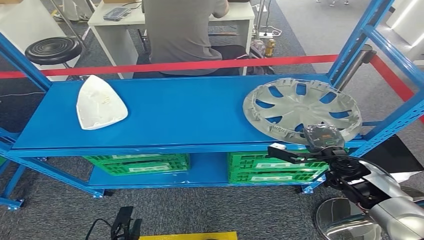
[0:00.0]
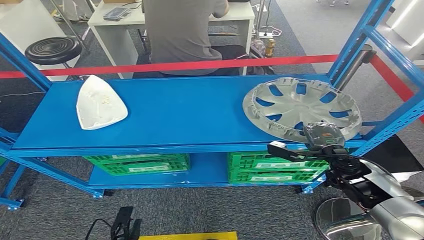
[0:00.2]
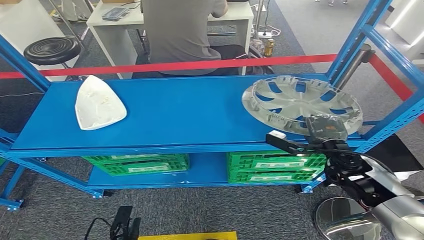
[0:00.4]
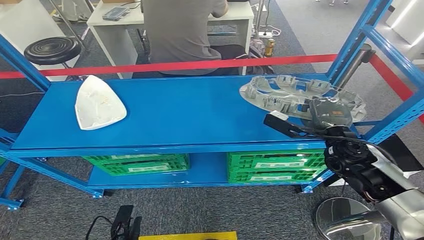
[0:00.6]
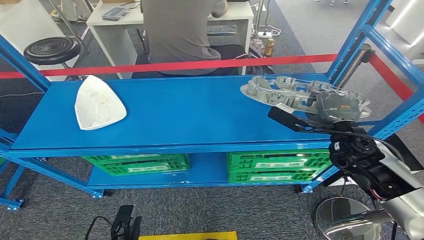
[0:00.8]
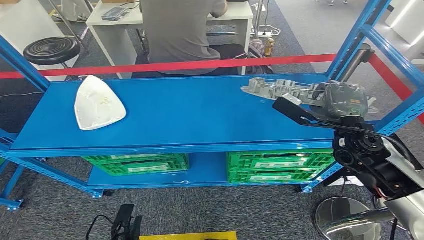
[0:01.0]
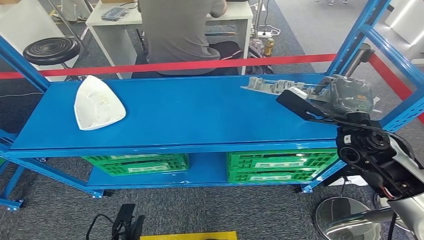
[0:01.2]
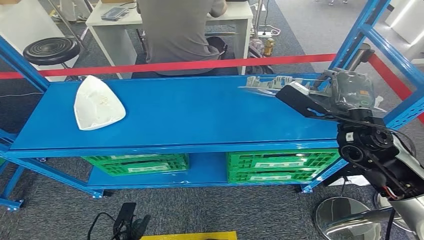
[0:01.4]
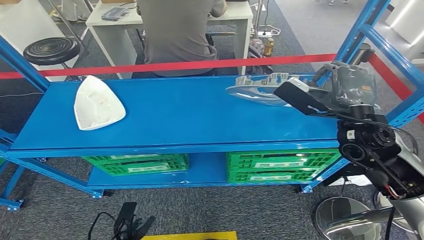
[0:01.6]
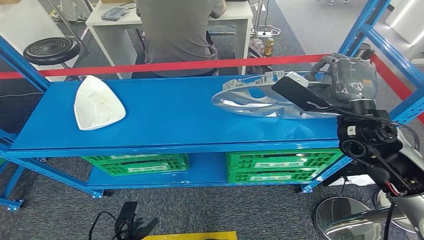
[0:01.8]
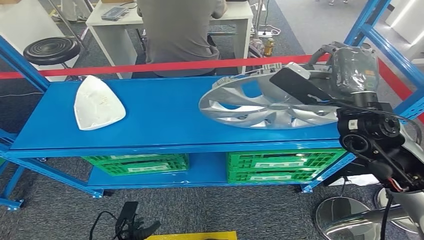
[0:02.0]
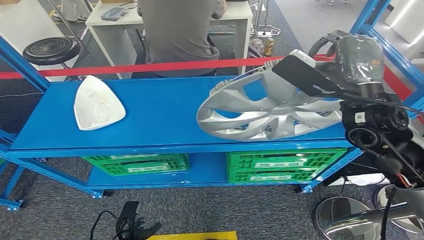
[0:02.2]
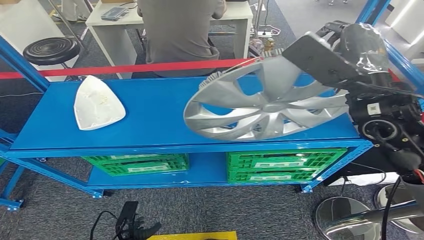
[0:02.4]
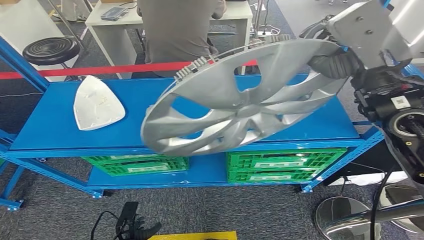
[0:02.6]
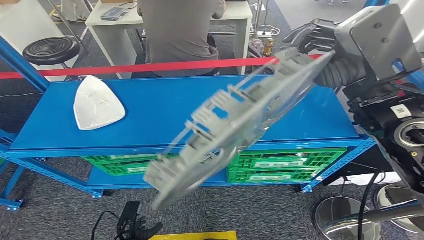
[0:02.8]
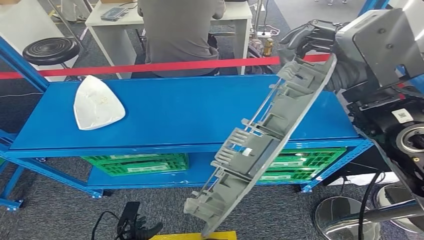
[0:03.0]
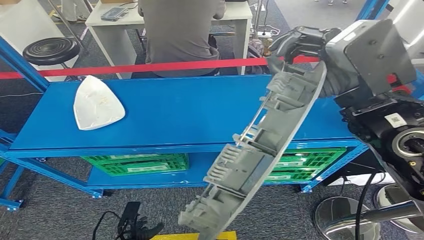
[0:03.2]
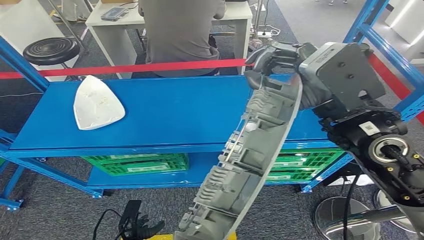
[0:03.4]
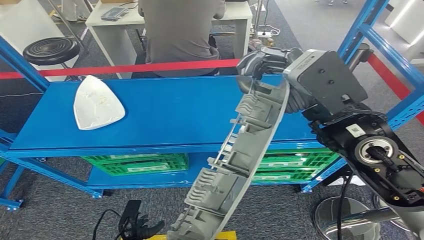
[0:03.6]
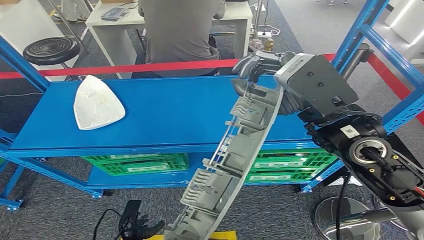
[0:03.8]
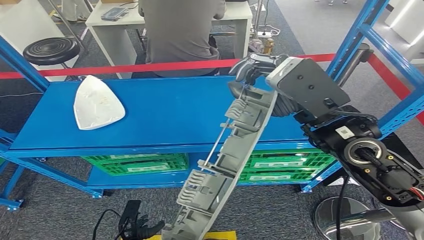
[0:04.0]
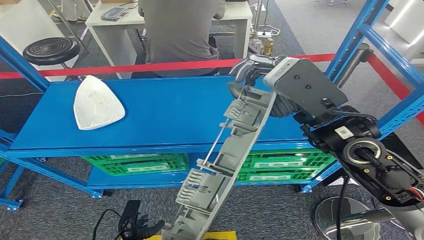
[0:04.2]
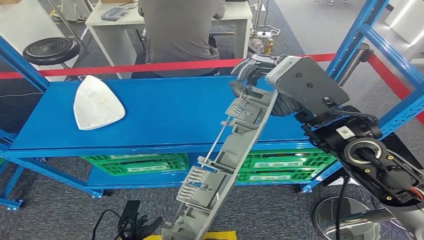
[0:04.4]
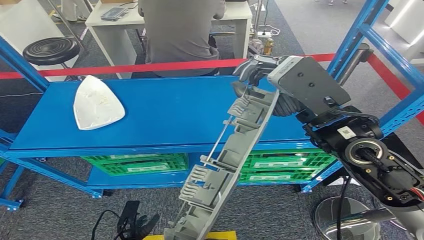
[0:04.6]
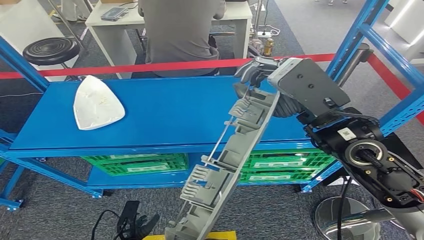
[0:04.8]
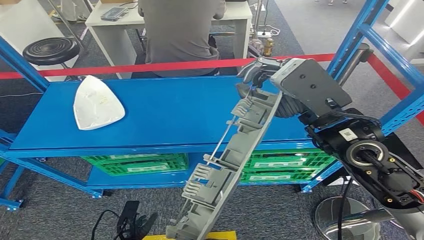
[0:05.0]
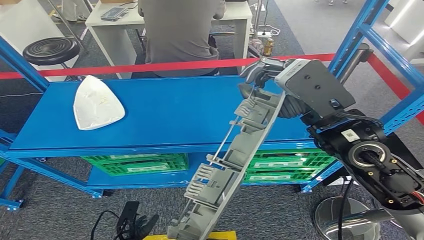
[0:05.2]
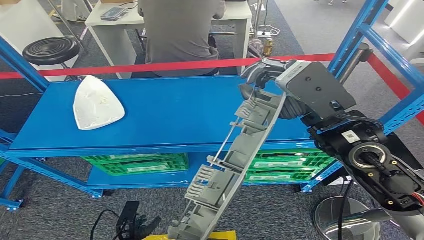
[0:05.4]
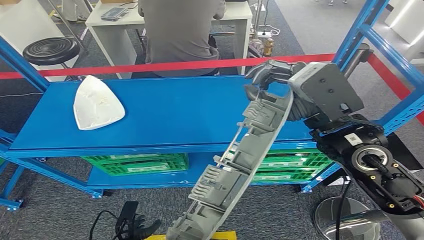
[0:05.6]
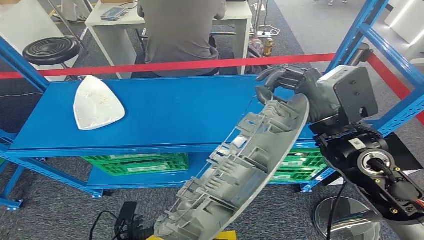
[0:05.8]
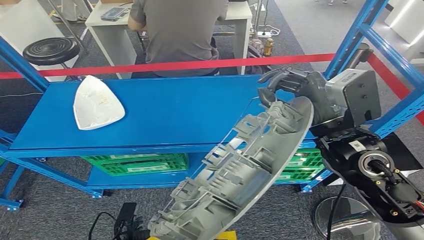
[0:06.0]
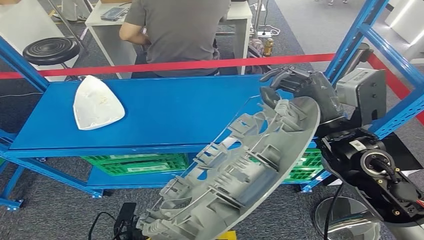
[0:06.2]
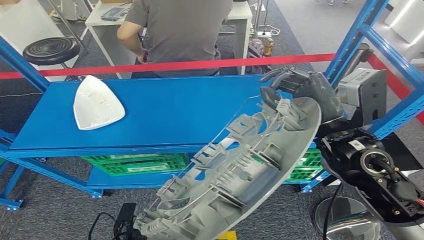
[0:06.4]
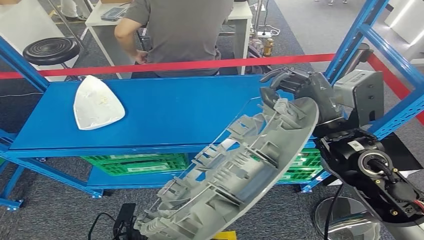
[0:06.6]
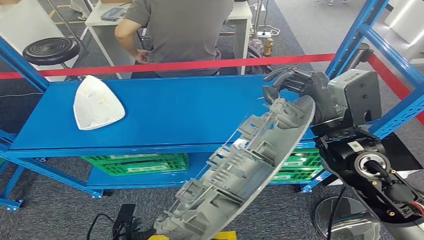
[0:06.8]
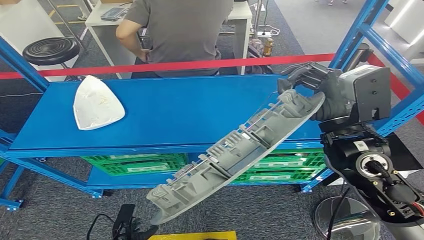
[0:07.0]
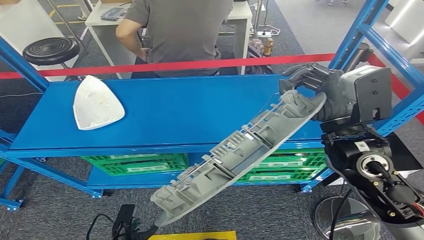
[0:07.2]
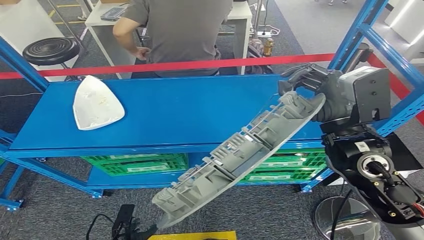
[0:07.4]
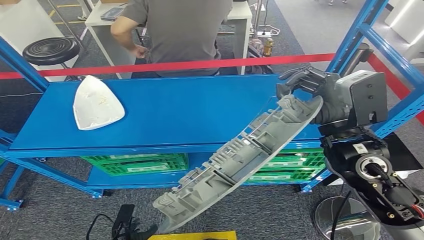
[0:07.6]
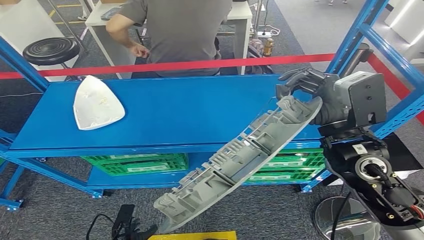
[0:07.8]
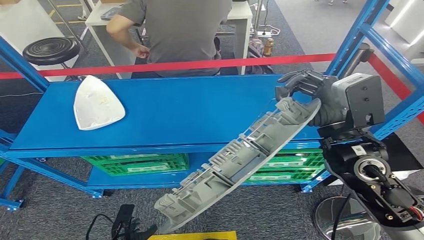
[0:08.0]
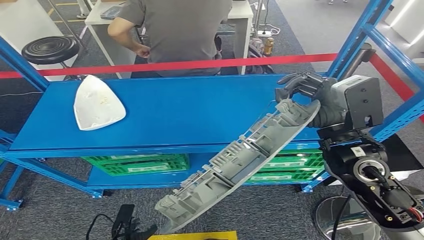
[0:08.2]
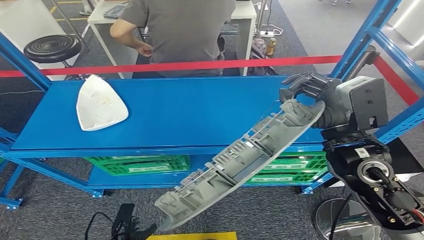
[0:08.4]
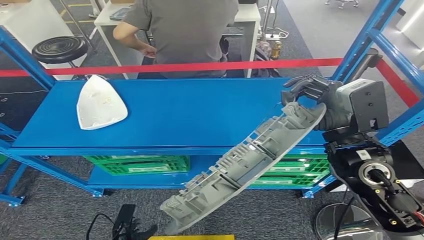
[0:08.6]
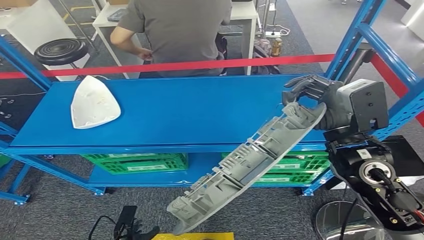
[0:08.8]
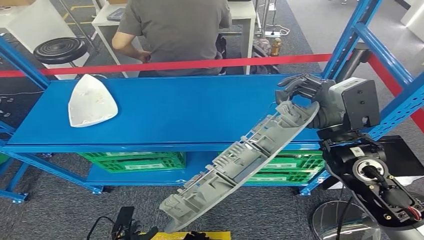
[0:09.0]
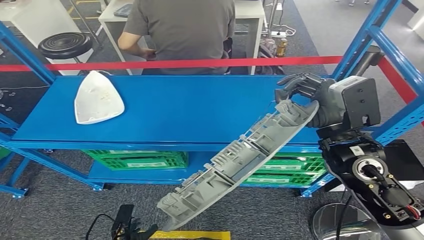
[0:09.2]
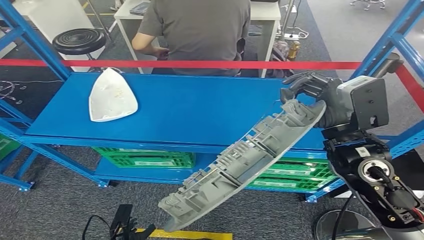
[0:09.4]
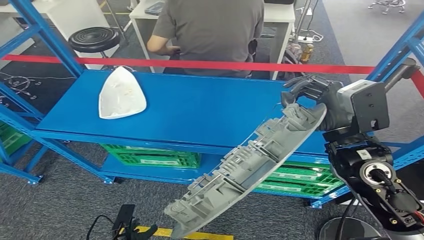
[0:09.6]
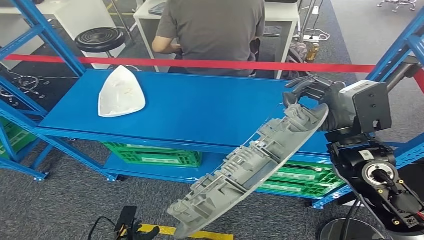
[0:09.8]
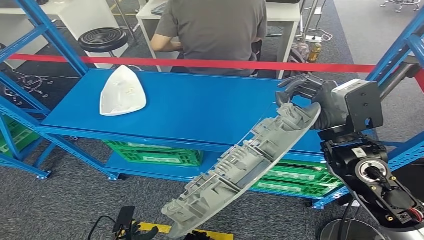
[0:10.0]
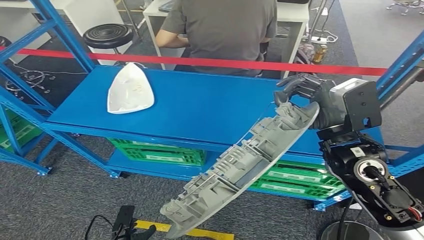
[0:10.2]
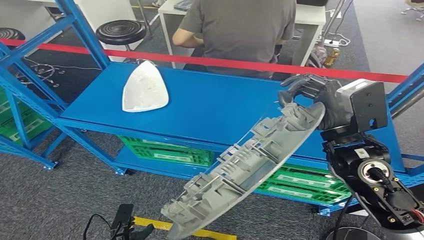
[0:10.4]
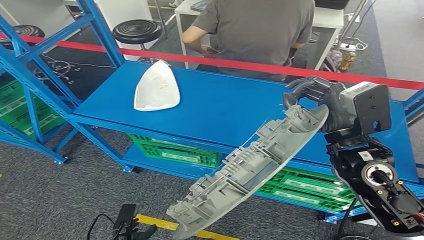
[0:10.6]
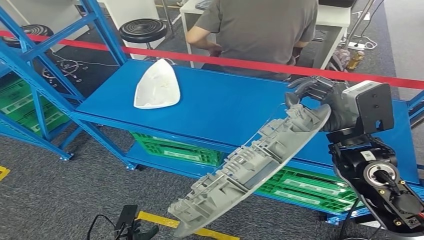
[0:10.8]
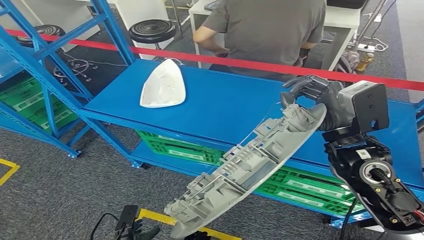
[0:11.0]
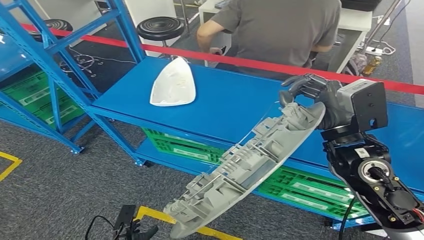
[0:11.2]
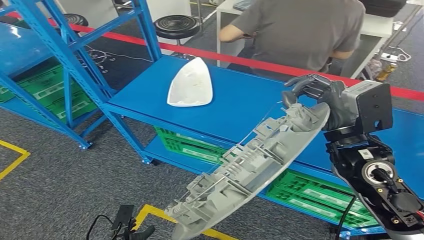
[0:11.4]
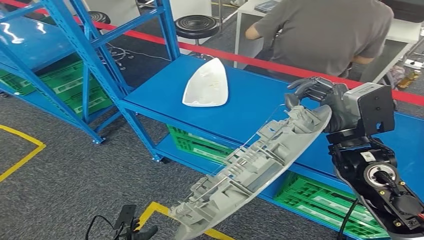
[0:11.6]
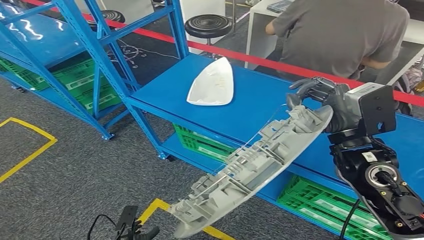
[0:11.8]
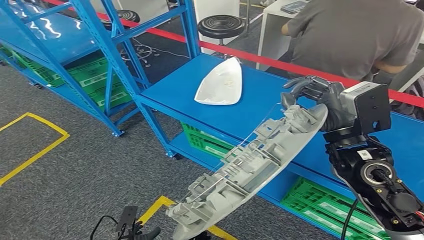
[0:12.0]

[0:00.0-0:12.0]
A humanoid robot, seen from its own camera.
Step, 0:00.0 to 0:02.6: Pick up the small parts from the shelf.
0:00.0 to 0:01.6: The right hand heads upward, covering roughly 15 cm.
0:04.4 to 0:06.0: The right hand moves about 5 cm.
0:06.0 to 0:07.6: There are only small adjustments of the hands.

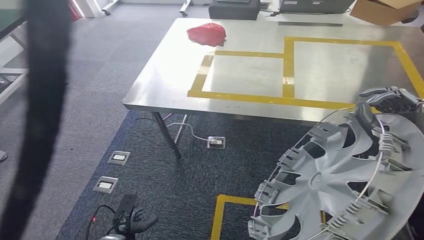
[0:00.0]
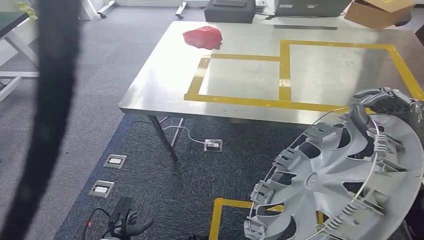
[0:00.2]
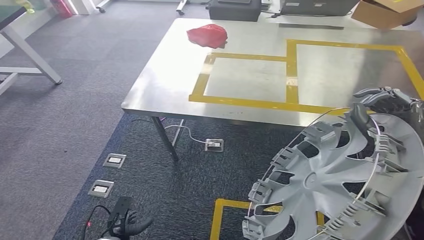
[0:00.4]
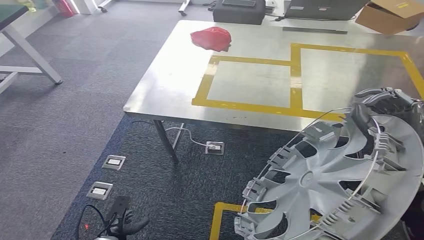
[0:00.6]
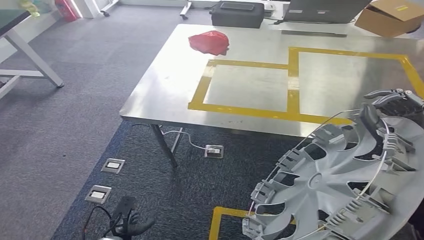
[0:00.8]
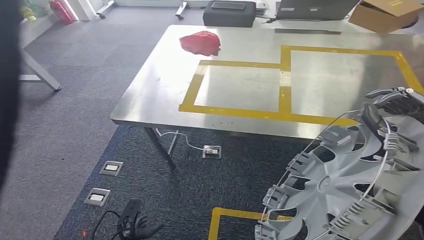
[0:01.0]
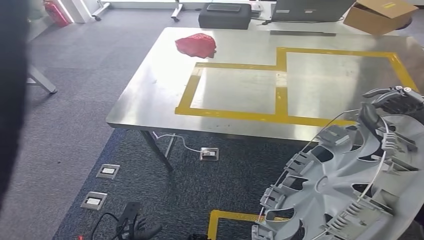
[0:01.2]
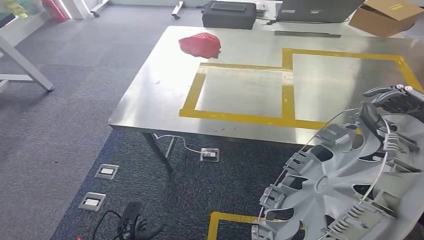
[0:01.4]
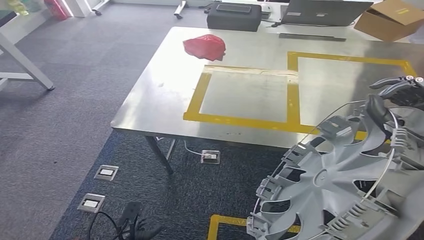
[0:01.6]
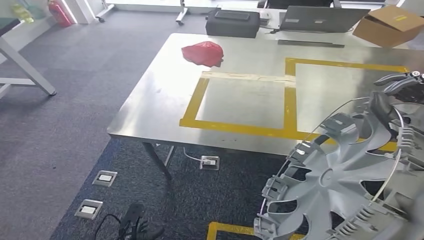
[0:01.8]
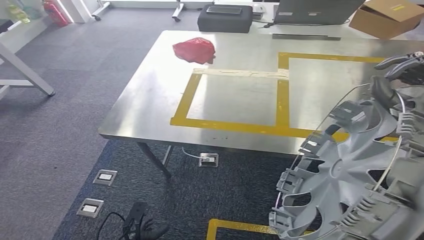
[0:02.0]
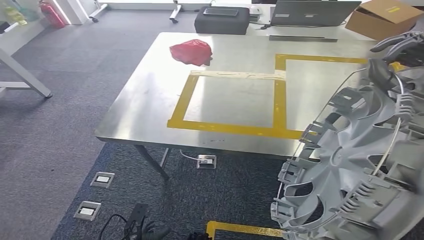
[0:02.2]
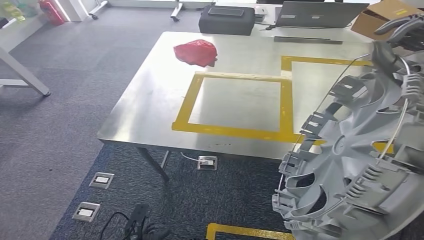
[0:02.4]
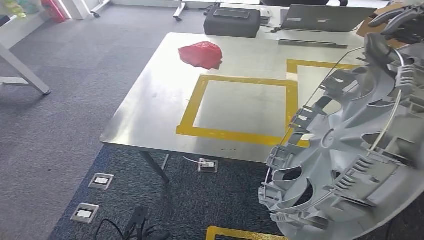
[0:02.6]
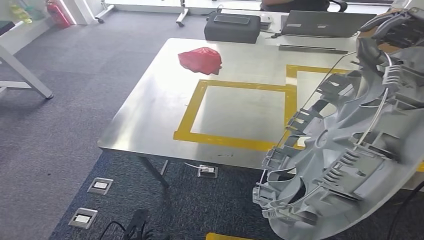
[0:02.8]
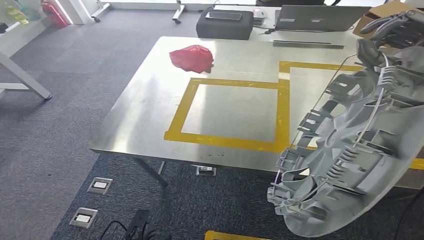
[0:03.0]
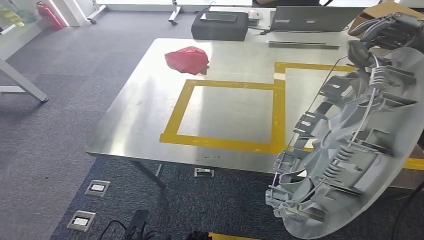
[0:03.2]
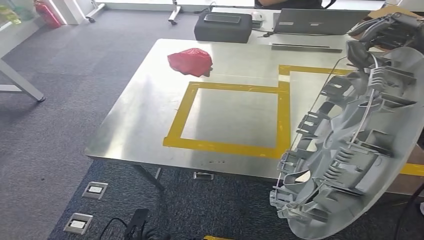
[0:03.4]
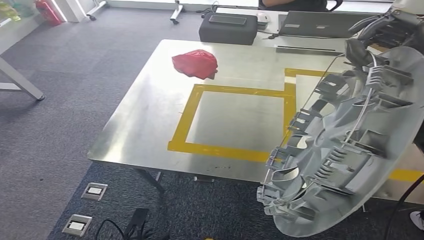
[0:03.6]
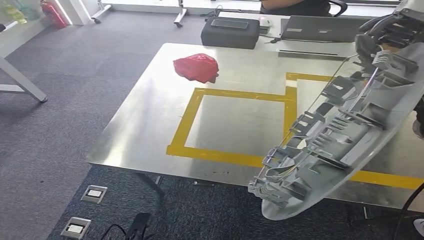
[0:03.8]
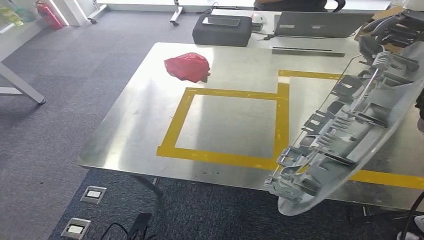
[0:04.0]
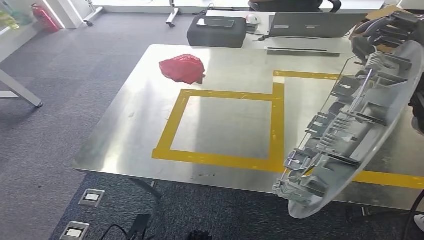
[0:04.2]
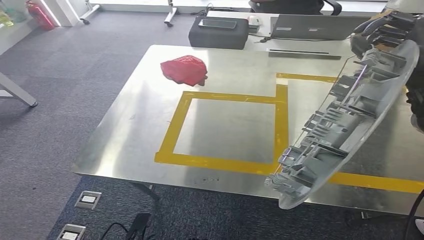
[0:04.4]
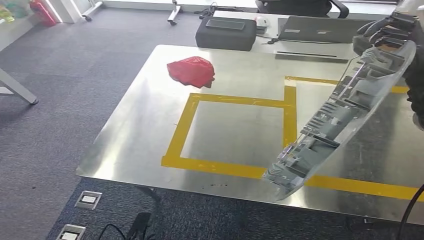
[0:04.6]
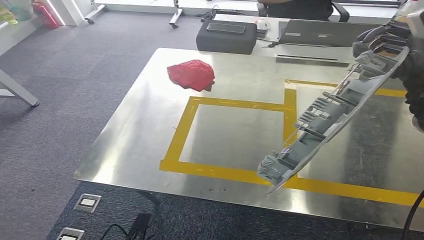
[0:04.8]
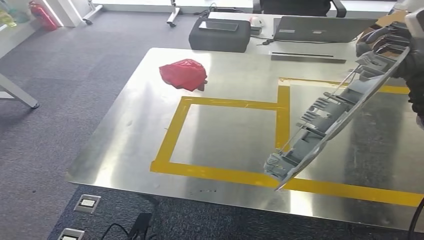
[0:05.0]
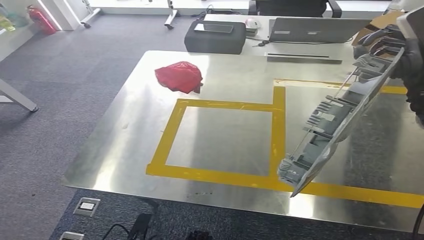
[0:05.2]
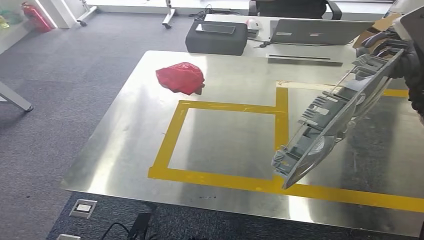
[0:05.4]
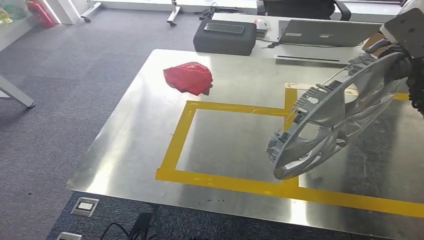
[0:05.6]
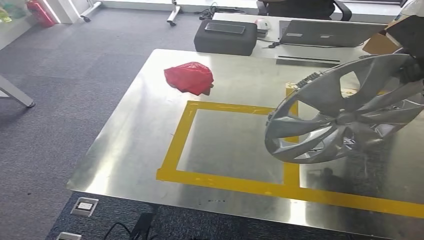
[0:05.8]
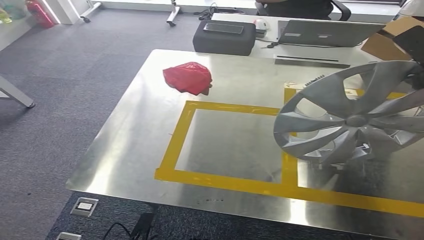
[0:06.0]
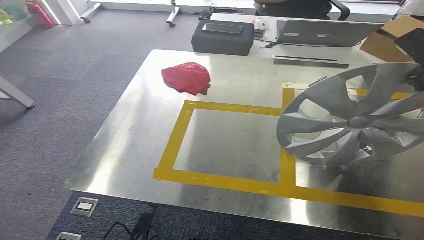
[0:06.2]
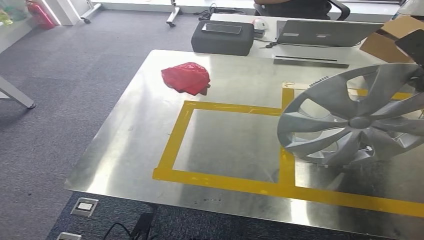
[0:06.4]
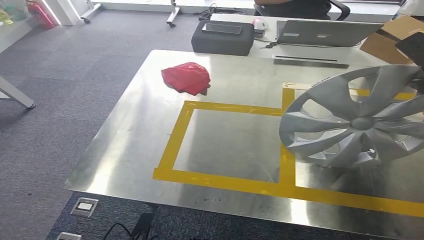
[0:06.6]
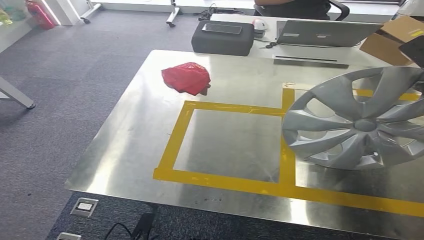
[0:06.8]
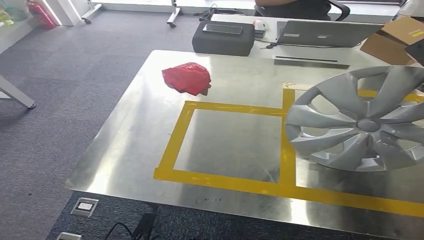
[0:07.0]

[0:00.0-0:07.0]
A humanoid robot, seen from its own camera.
Step, 0:00.0 to 0:06.4: Move the small parts to the workbench.
0:05.6 to 0:07.0: The right hand travels to the right by roughly 10 cm.
